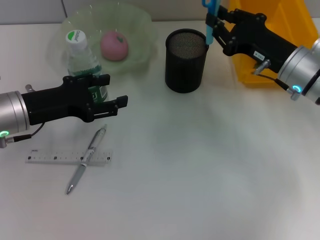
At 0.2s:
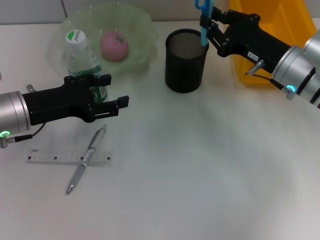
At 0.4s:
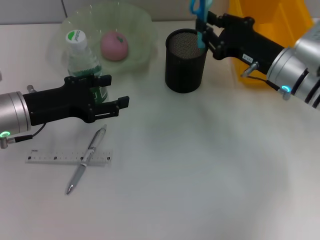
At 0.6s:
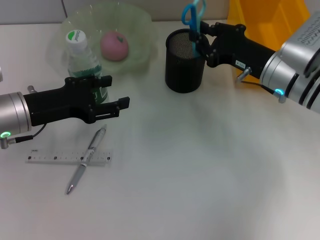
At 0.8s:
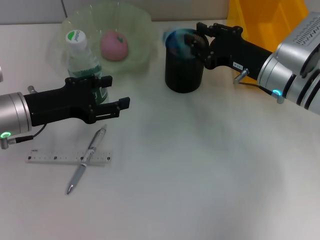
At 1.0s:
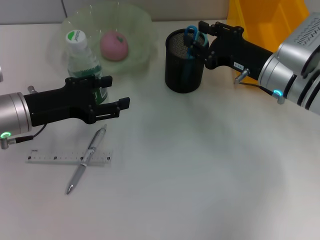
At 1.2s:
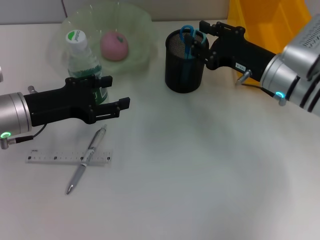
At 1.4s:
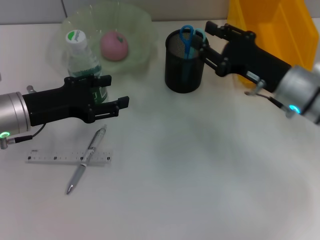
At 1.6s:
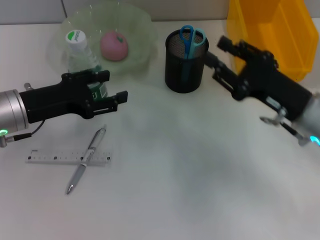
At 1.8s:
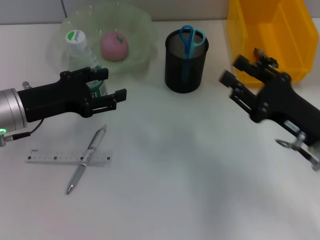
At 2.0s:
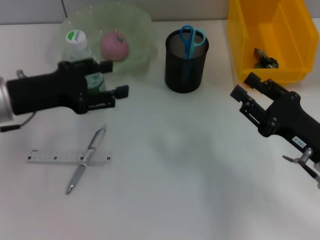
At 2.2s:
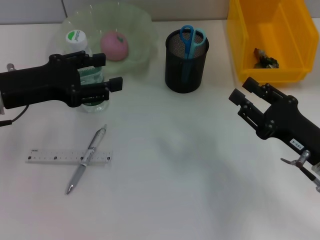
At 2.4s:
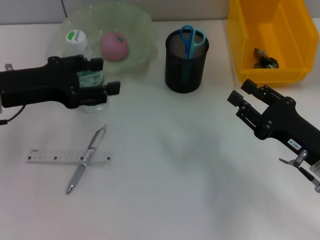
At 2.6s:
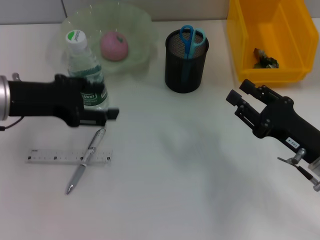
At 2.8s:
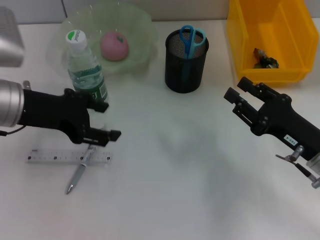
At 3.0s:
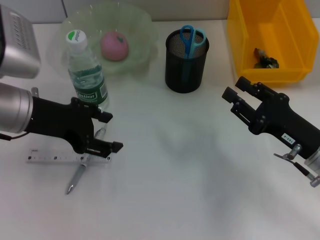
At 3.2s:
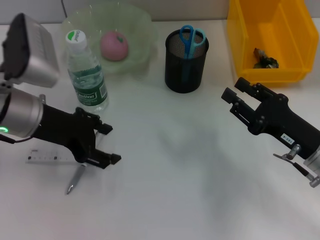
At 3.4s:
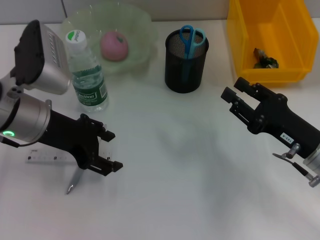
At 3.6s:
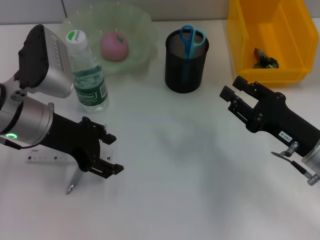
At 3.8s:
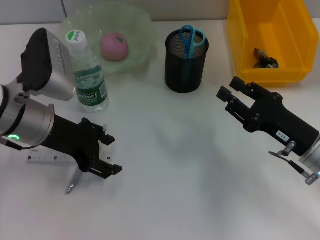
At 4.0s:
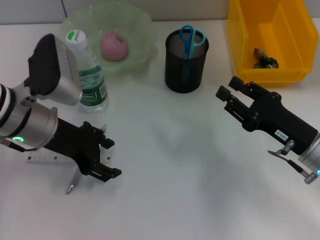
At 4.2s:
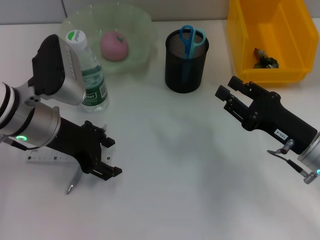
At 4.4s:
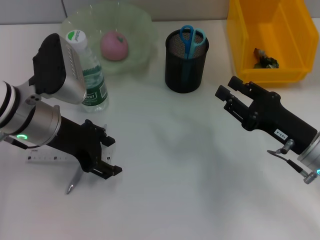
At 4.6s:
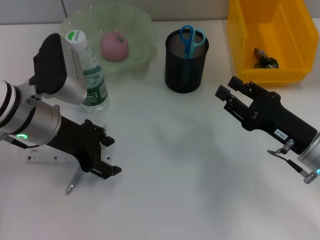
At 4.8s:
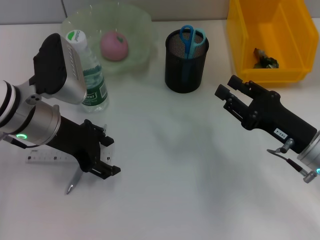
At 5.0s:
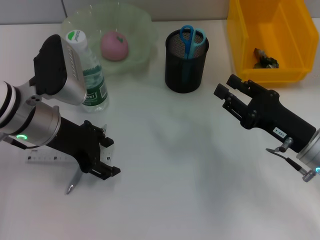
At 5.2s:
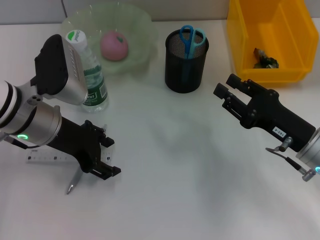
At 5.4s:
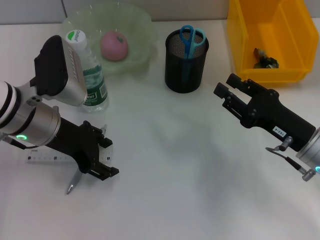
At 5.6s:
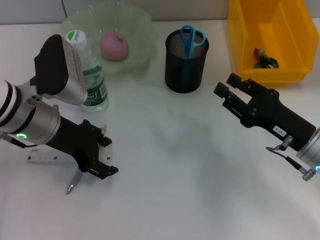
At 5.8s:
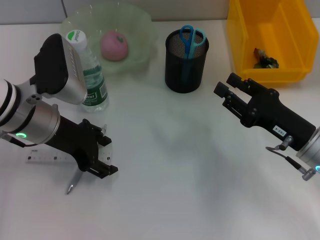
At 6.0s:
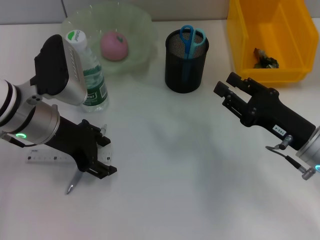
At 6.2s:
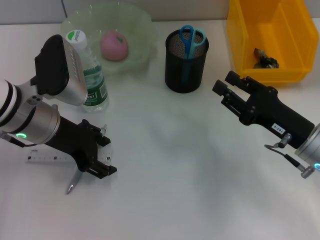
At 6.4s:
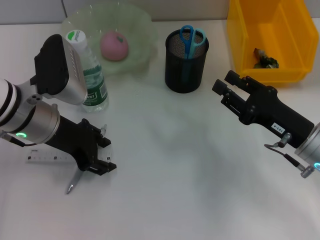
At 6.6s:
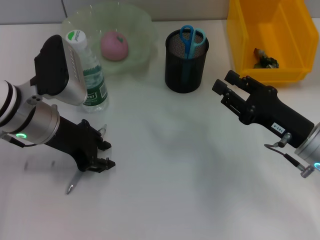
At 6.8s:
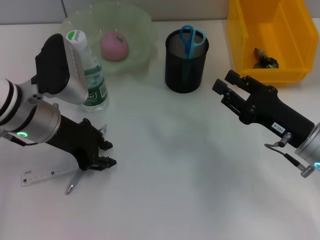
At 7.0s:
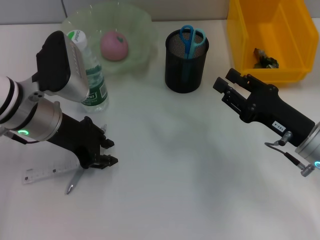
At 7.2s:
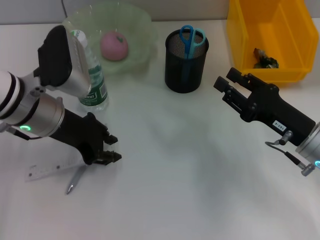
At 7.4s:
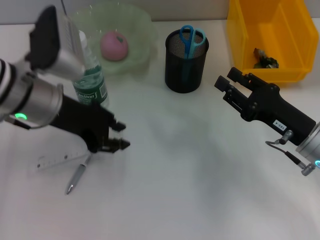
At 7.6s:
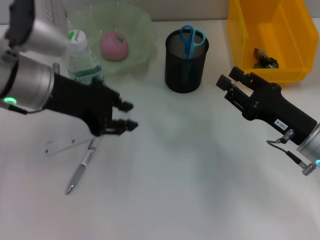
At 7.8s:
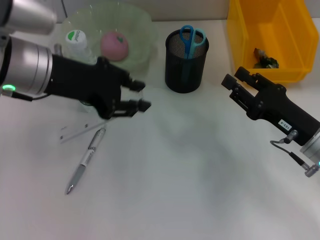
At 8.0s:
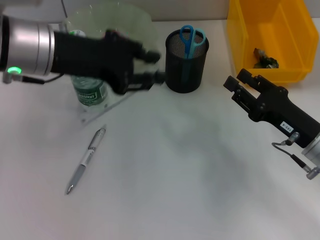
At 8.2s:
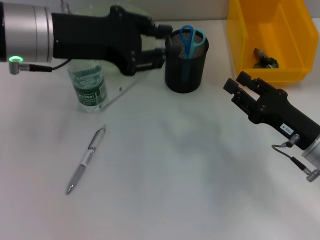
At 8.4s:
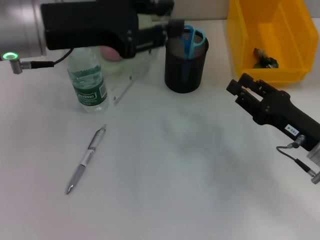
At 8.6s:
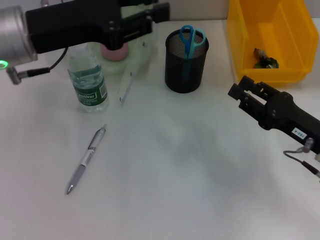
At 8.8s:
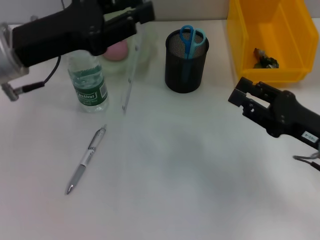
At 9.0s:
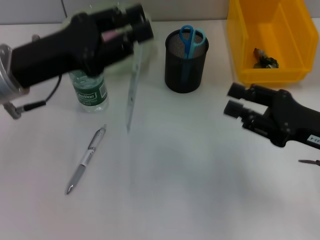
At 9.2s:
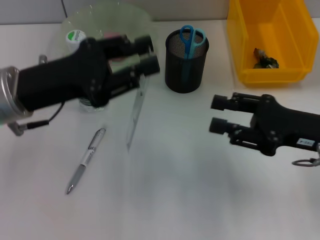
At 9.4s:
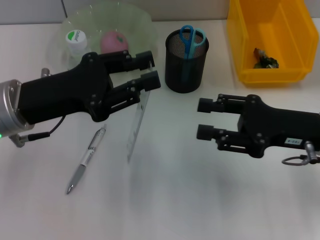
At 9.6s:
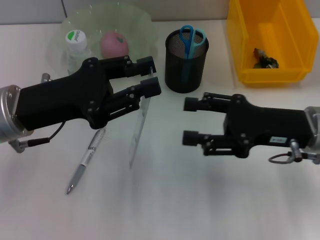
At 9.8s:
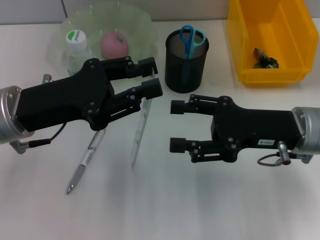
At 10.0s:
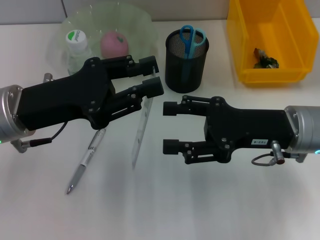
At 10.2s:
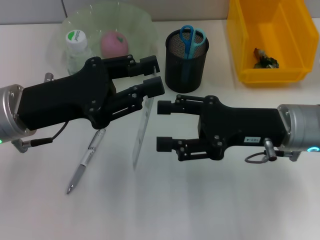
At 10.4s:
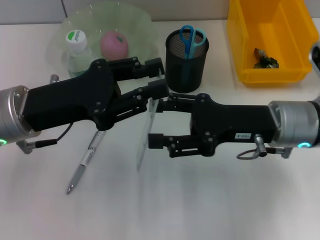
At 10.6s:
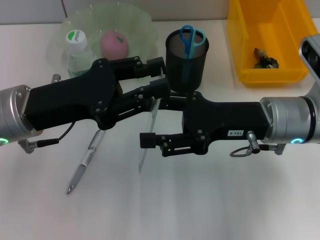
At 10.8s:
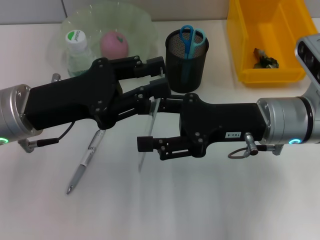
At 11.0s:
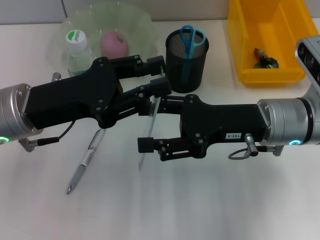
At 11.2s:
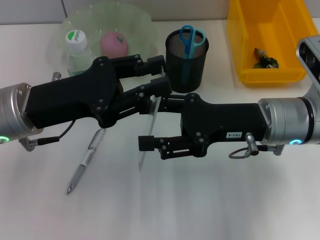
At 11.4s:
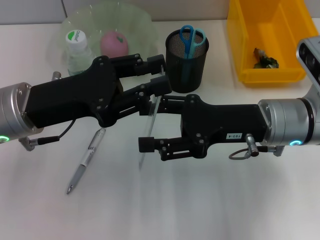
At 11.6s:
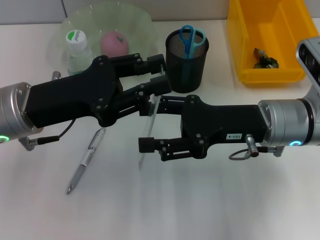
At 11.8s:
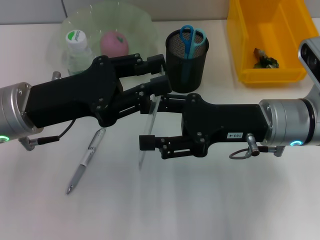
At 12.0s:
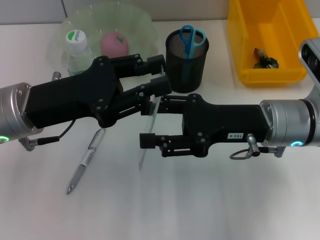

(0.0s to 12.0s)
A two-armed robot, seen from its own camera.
Step, 1.4s - 6.8s: Grab the ruler with the left hand.
0.0s - 1.6s: The right gripper moves backward, approximately 5 cm, and opens up.
1.6s - 3.0s: The left gripper goes roughly 5 cm upward. The right gripper changes place by roughly 5 cm.
3.0s - 4.4s: The grippers stay close to where they were, moving slightly.
4.4s - 6.0s: Both grippers stay put.
6.0s - 7.6s: The left gripper heads upward, covering about 5 cm, and closes up.
7.6s - 9.0s: The right gripper ends up approximately 5 cm from where it was.
9.0s - 10.4s: The right gripper travels to the left by approximately 10 cm, and opens.
10.4s - 12.0s: The grippers move only a little.

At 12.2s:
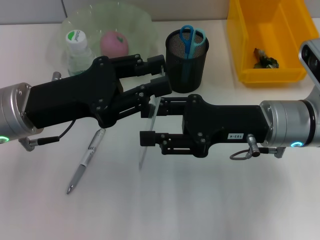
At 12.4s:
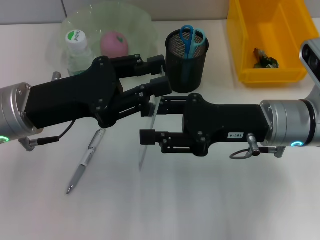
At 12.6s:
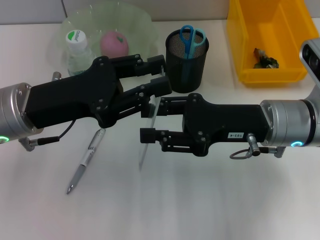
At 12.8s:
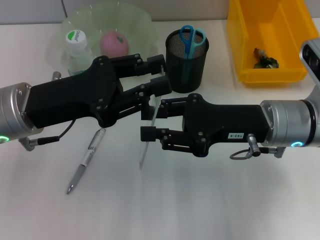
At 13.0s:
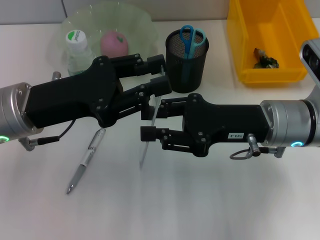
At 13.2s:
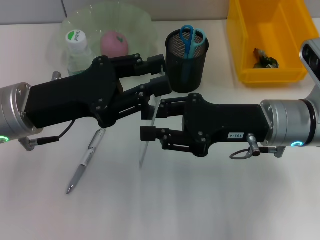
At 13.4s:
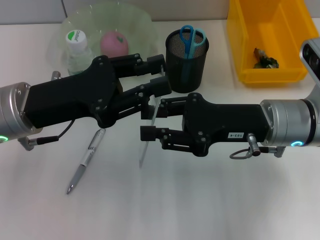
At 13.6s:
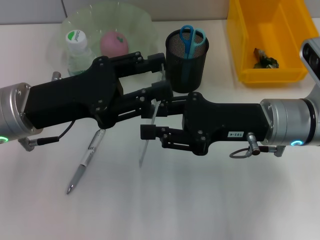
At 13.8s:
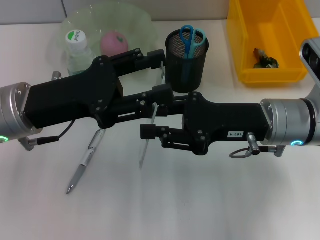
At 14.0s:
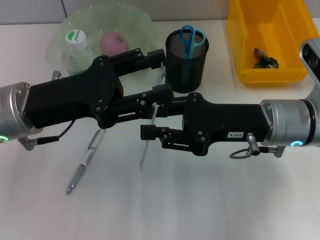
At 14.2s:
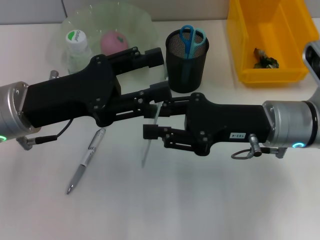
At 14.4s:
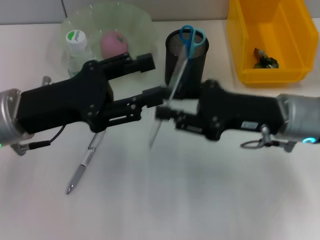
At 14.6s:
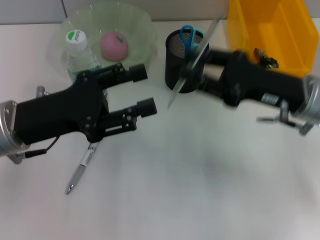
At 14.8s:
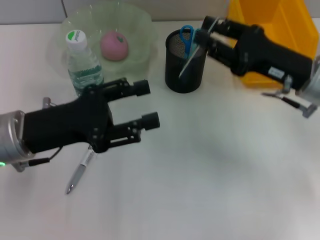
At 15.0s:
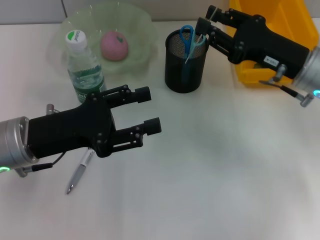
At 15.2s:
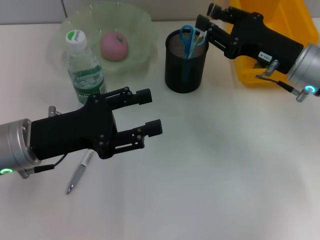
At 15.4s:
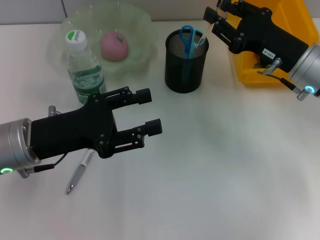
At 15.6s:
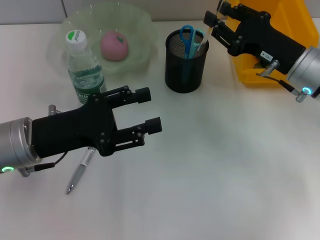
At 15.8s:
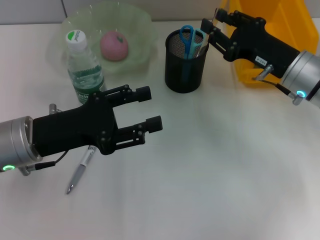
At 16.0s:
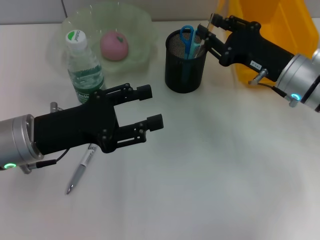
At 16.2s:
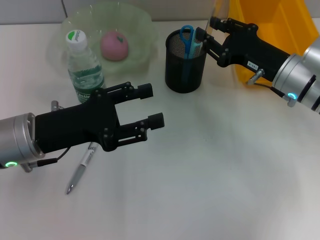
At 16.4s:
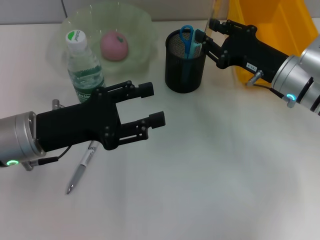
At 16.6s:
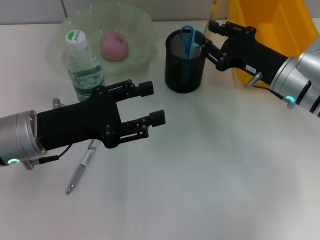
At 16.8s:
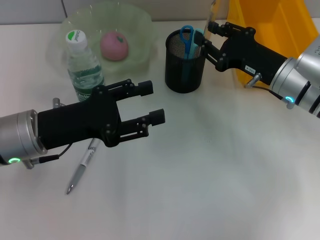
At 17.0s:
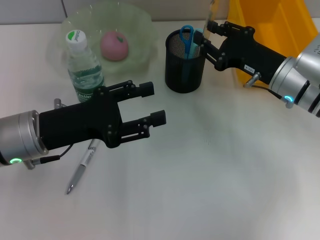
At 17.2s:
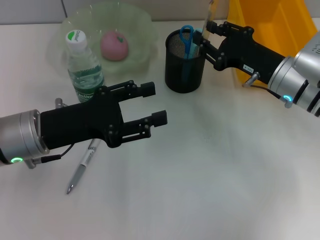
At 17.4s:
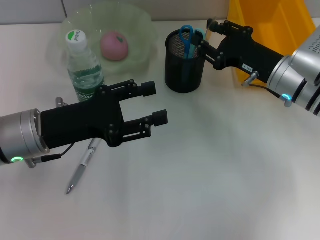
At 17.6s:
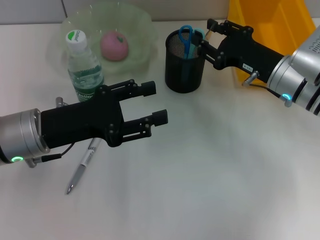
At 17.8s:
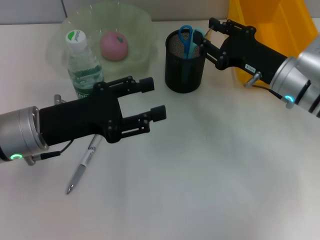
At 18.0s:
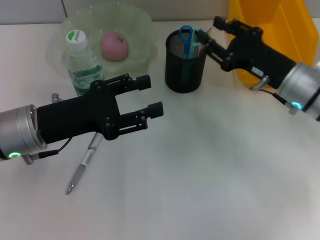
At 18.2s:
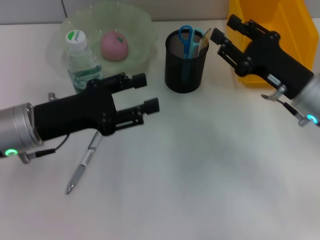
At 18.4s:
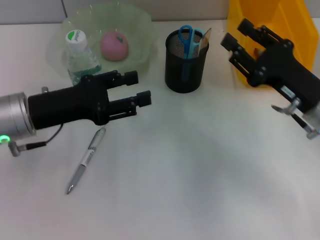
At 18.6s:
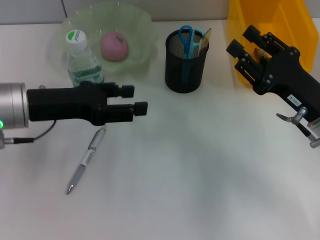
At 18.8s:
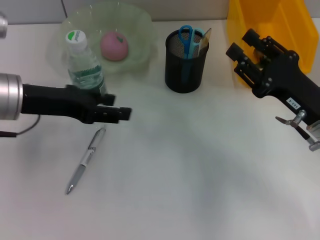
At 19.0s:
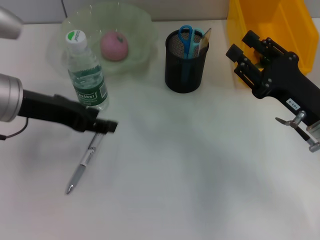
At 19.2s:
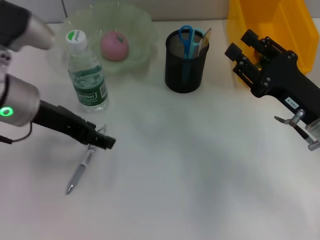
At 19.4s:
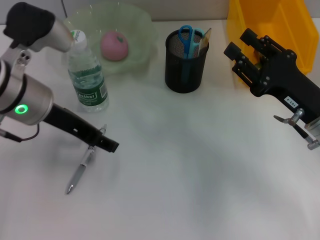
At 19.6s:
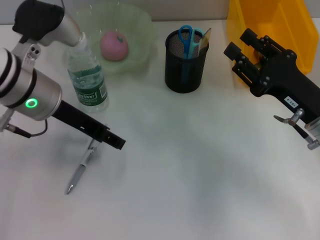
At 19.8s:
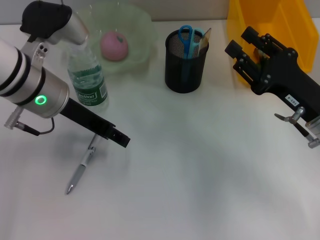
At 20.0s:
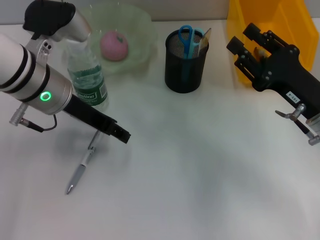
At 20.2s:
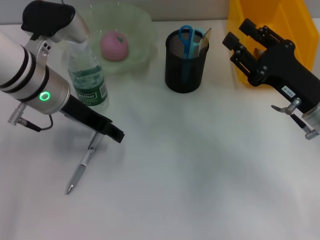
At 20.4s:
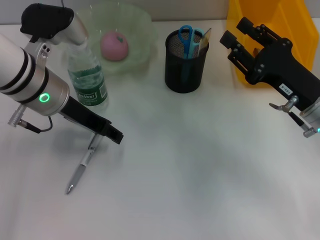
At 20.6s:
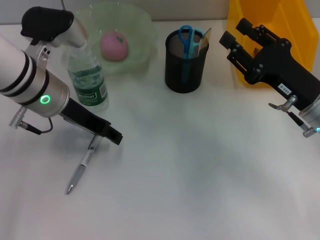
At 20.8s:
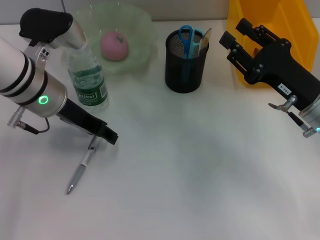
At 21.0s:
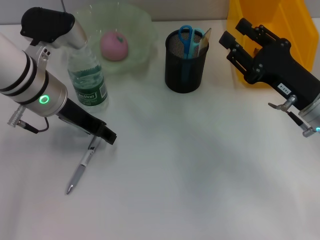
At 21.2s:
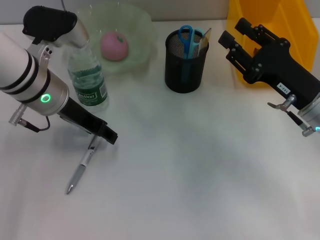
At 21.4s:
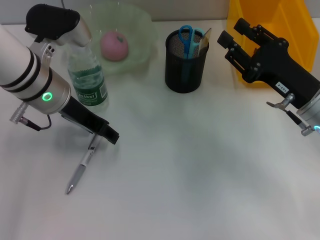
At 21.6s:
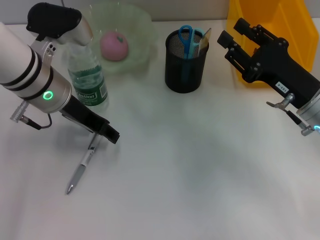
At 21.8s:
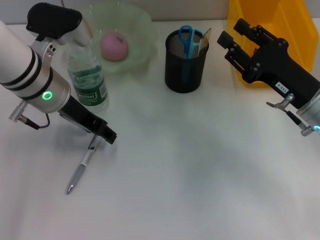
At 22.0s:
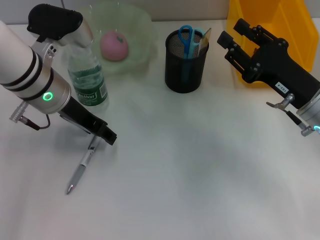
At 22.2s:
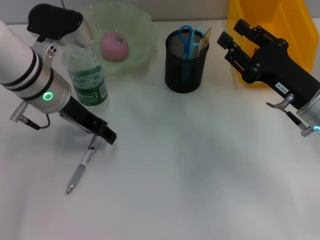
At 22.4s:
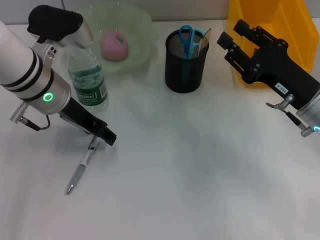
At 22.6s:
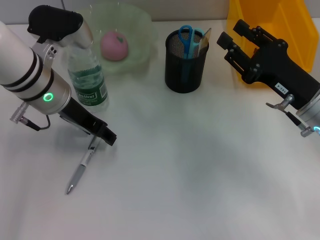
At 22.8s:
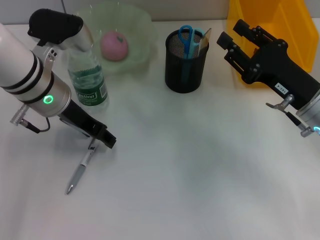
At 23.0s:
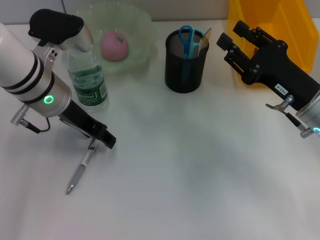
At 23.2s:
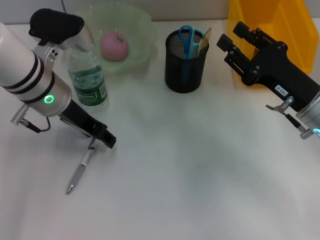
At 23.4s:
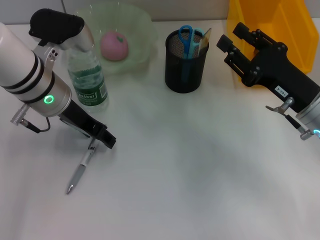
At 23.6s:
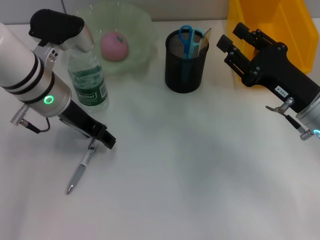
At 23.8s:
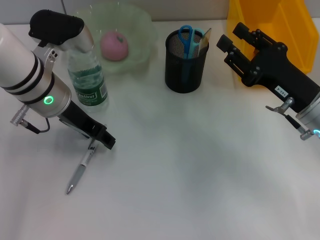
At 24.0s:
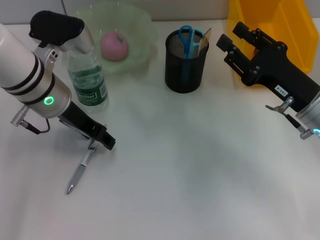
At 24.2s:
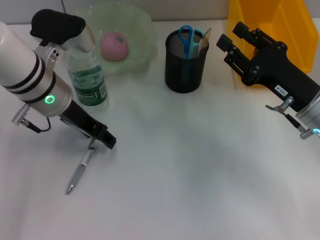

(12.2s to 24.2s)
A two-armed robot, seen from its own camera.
Step, 12.2s - 14.4s: Pass the ruler from the left hand to the right hand.
Step, 14.6s - 18.2s: Place the ruler into the pen holder with the right hand.
12.2s - 13.8s: The right gripper closes.
13.8s - 15.2s: The right gripper is displaced forward and to the right by about 5 cm.
15.2s - 18.2s: The grippers move only a little.
18.2s - 19.8s: The left gripper heads forward and upward, covering roughly 10 cm.
19.8s - 21.2s: The grippers make only small movements.
21.2s - 24.2s: The two grippers keep their place.
